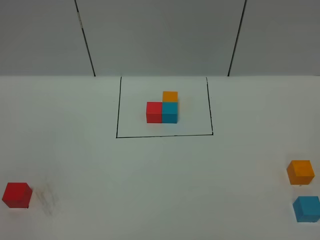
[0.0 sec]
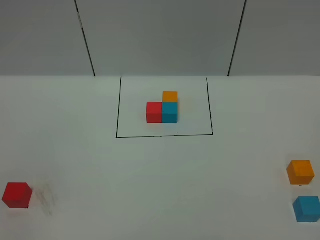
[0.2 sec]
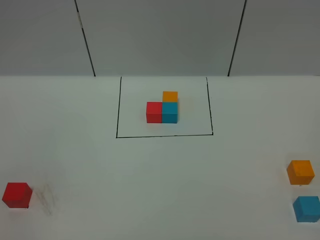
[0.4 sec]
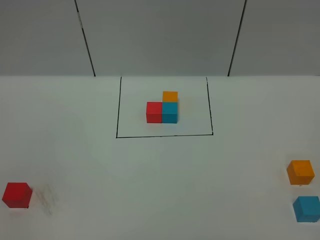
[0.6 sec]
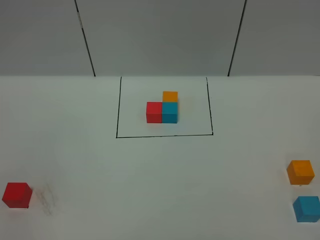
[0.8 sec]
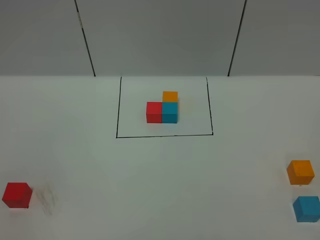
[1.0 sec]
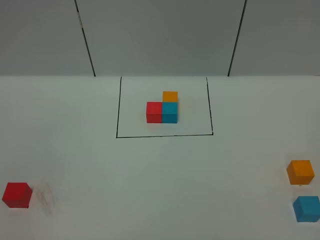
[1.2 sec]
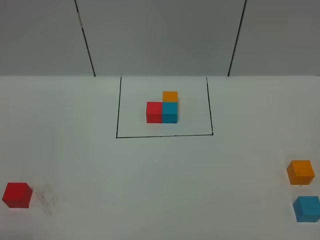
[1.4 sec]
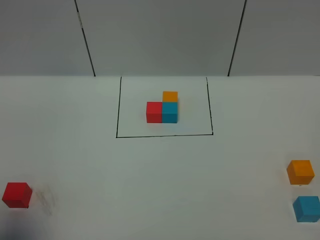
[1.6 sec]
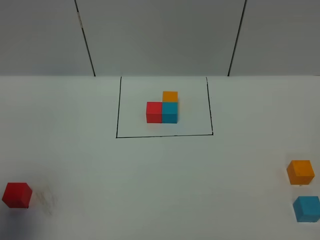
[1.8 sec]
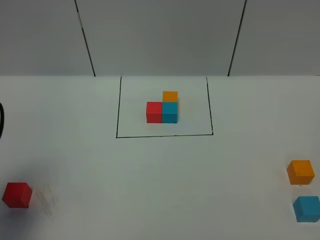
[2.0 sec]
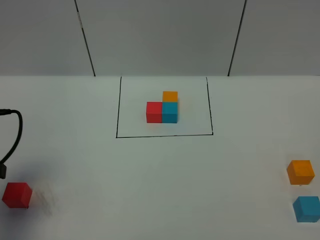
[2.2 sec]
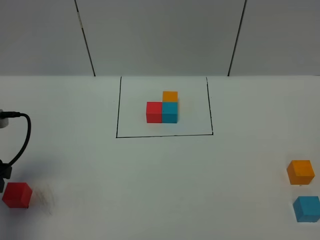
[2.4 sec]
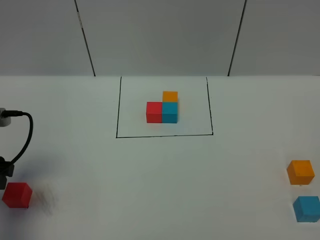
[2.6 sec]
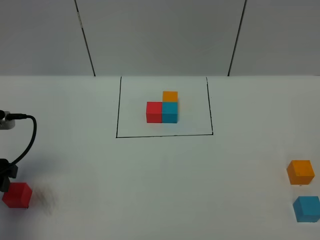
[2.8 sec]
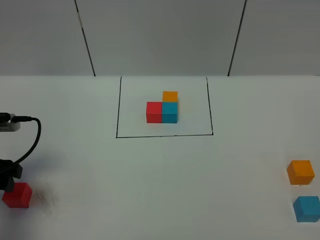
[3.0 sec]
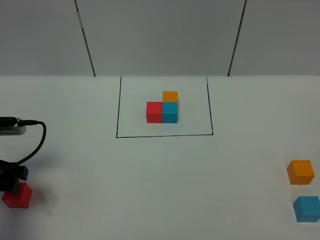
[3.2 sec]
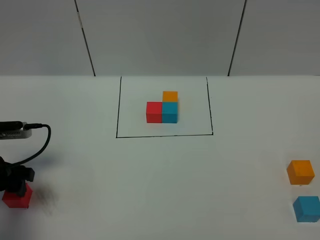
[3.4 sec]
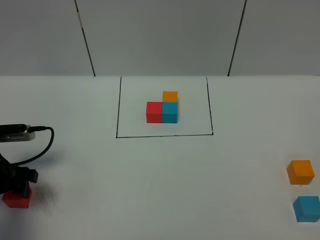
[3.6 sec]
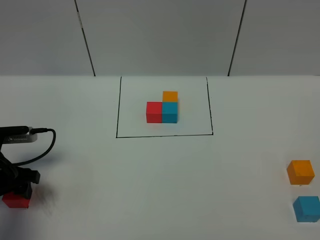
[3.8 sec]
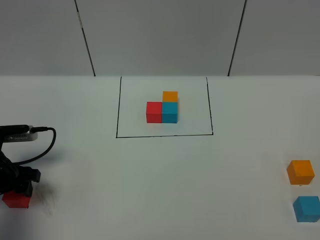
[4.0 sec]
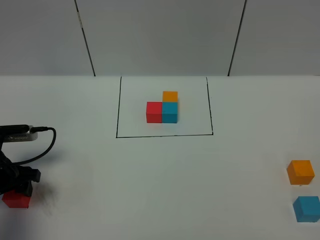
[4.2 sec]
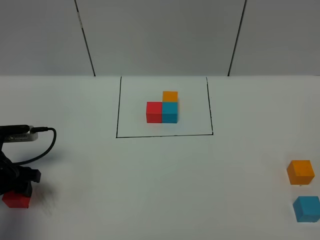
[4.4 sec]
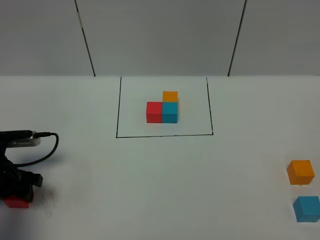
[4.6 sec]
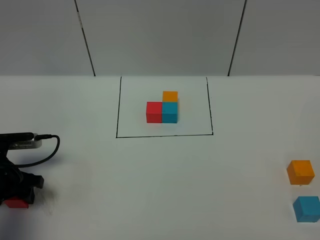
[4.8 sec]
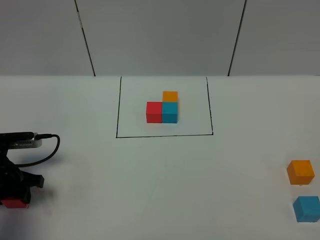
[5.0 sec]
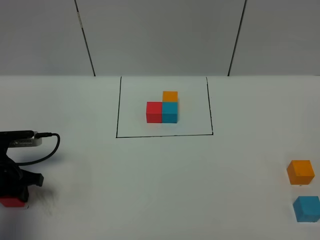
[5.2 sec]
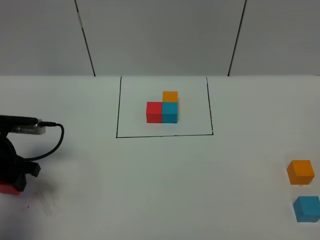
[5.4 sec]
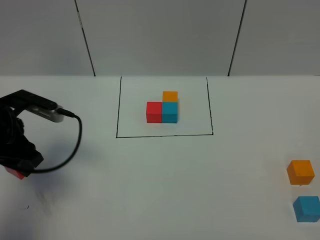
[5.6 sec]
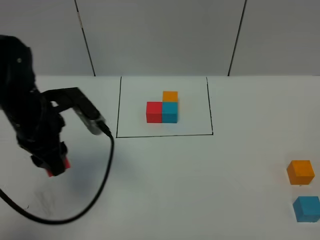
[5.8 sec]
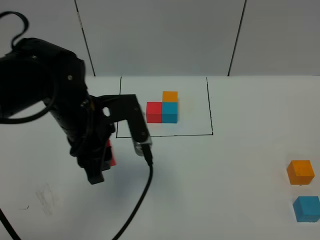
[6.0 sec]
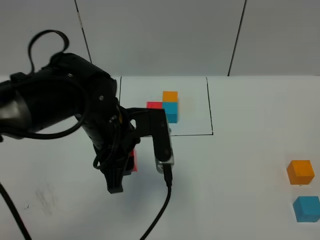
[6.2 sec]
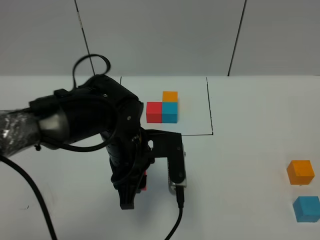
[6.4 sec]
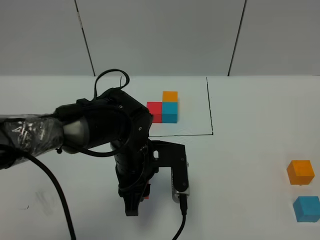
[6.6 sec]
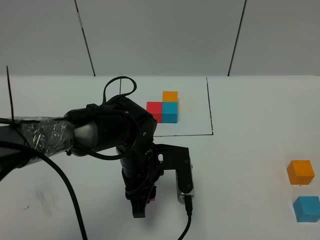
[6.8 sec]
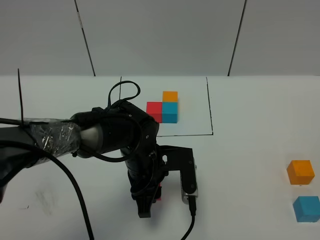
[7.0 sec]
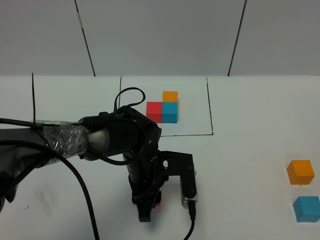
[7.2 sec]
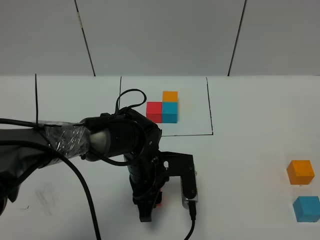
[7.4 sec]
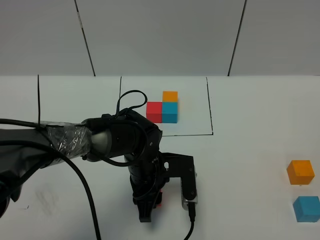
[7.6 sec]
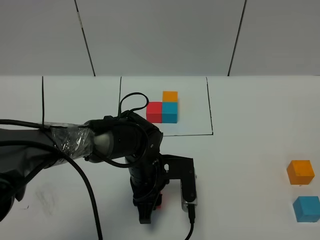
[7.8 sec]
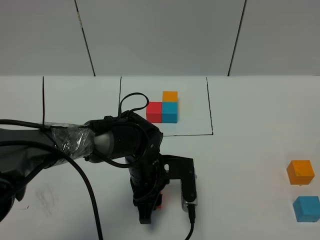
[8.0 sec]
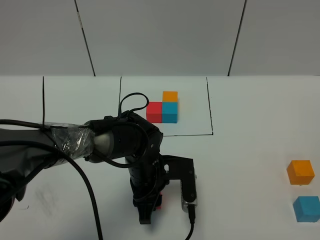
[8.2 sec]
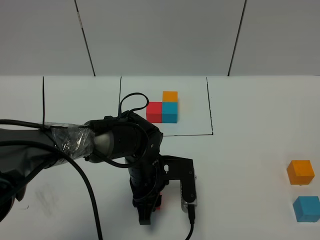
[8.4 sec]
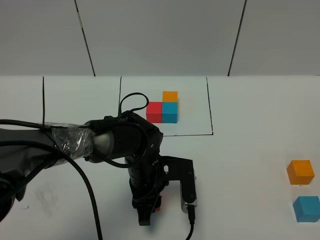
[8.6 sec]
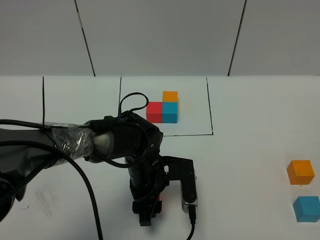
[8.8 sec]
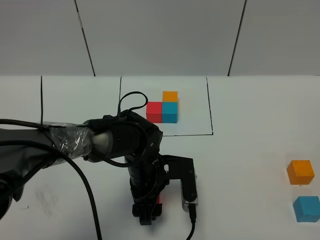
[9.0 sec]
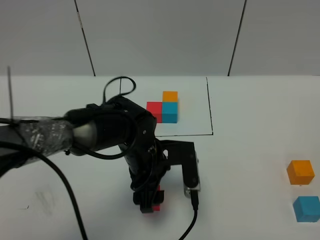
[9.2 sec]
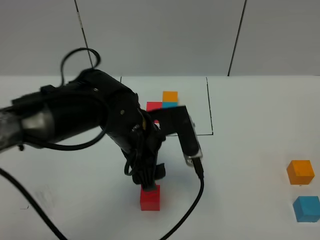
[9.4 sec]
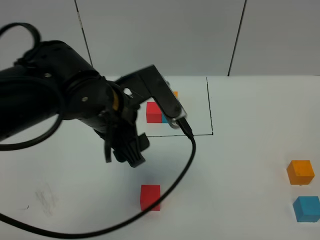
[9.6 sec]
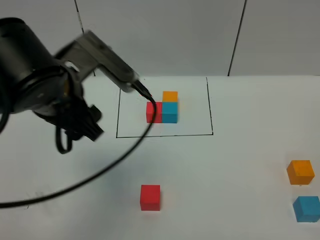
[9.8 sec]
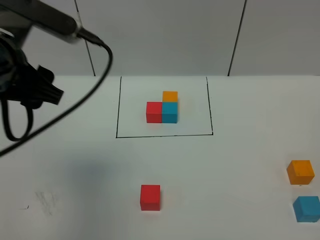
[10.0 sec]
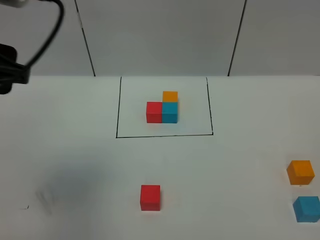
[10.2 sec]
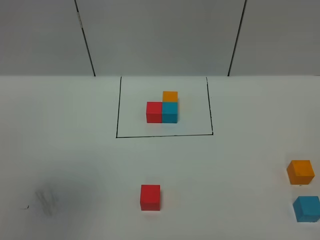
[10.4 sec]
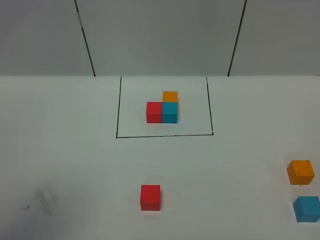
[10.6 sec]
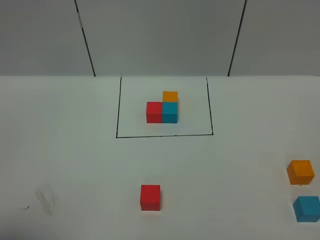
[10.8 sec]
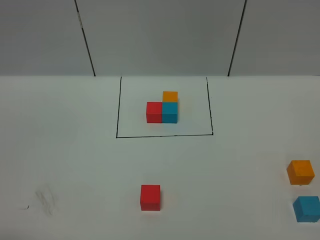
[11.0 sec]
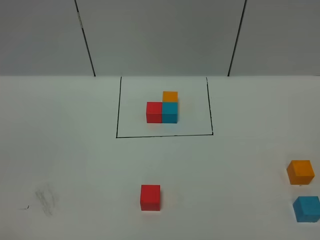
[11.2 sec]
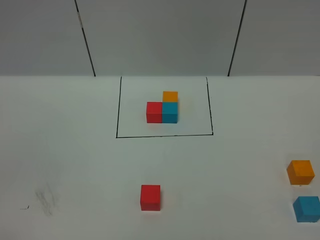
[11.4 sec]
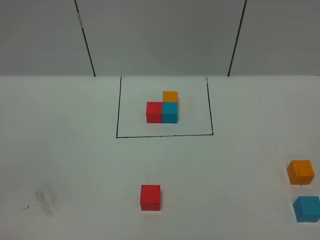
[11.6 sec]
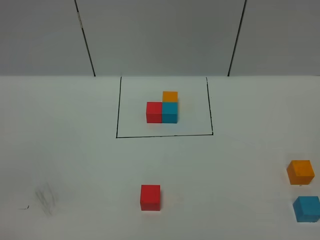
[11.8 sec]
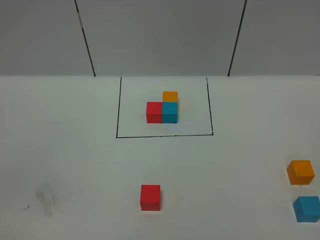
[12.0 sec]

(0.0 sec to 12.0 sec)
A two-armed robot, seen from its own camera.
Task of the whole recording: According to the building block template in front, assemble the scattered blocks together.
Step, 2.0 sec - 9.2 sec: Put the red cube in the center of the table.
0.0 sec - 1.6 sec: The left gripper goes roughly 15 cm forward and upward.
1.6 sec - 3.0 sec: The left gripper heads forward and downward, covering approximately 20 cm.
3.0 sec - 4.4 sec: The left gripper moves downward, approximately 5 cm.
4.4 sec - 6.0 sec: The left gripper heads to the right and upward, covering roughly 25 cm, and closes up.
6.0 sec - 7.6 sec: The left gripper moves downward and to the right, roughly 15 cm.
7.6 sec - 9.0 sec: The left gripper opens up.
9.0 sec - 10.4 sec: The left gripper shifts about 40 cm upward, to the left and backward.
10.4 sec - 12.0 sec: The left gripper moves downward, backward and to the left, approximately 25 cm.

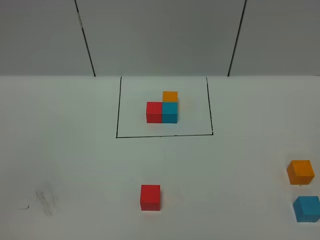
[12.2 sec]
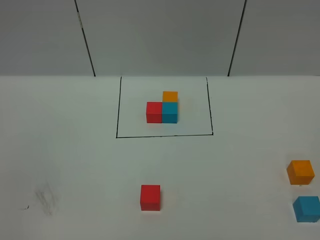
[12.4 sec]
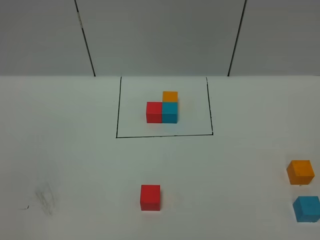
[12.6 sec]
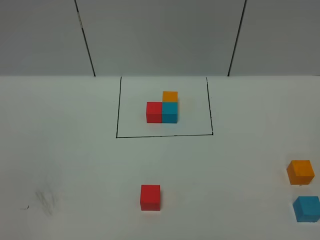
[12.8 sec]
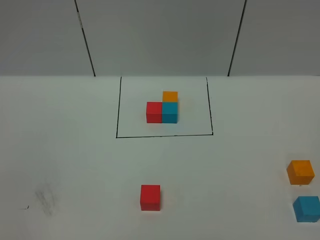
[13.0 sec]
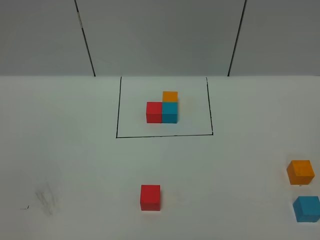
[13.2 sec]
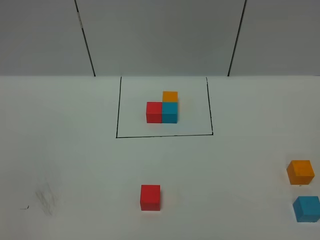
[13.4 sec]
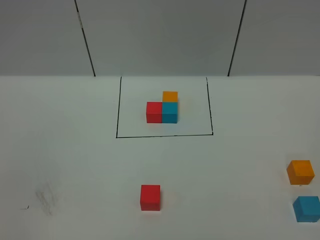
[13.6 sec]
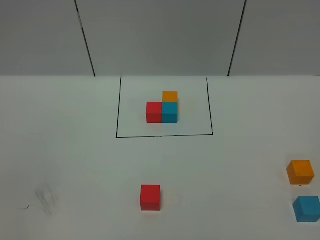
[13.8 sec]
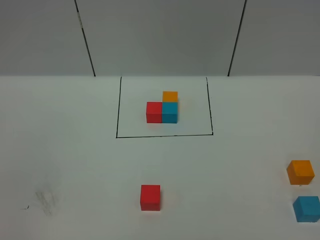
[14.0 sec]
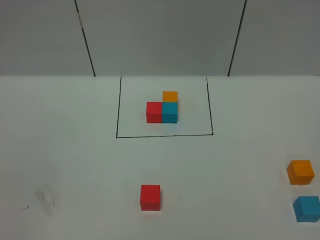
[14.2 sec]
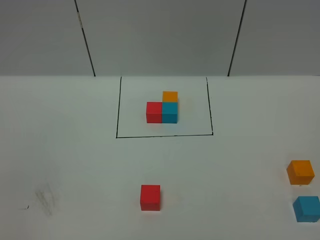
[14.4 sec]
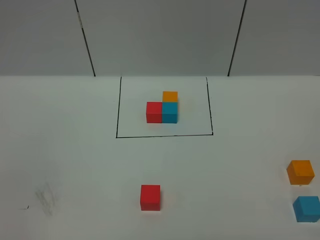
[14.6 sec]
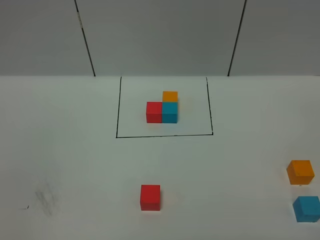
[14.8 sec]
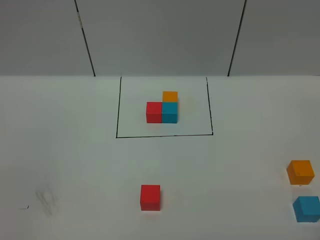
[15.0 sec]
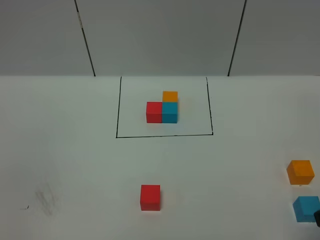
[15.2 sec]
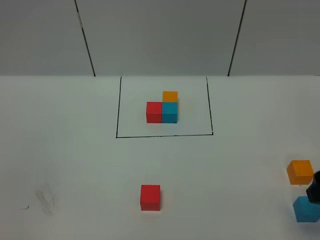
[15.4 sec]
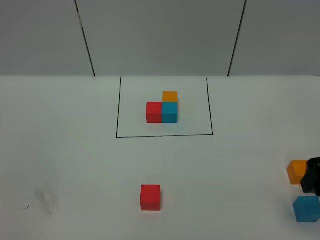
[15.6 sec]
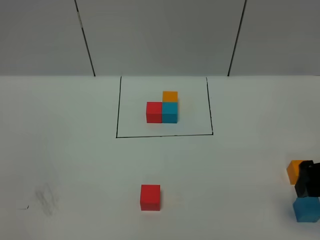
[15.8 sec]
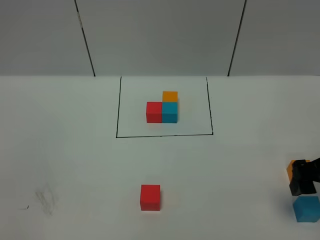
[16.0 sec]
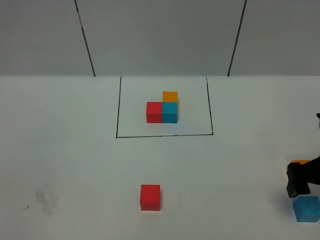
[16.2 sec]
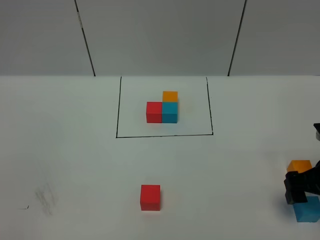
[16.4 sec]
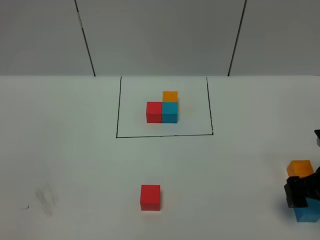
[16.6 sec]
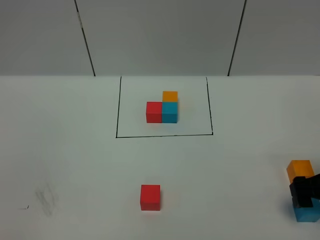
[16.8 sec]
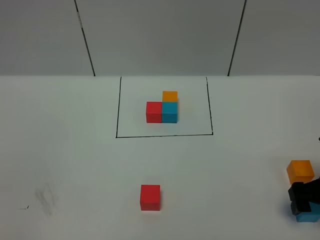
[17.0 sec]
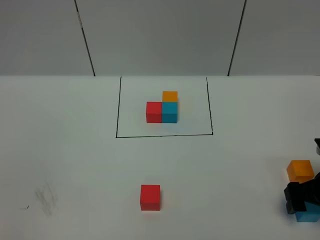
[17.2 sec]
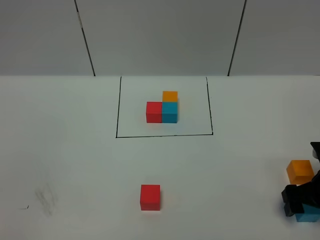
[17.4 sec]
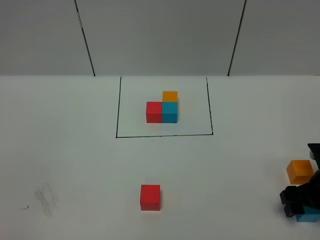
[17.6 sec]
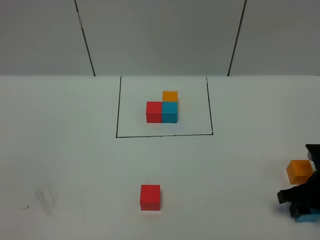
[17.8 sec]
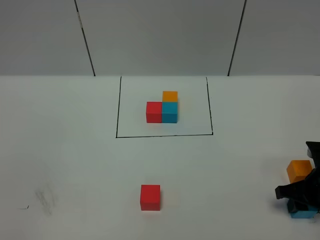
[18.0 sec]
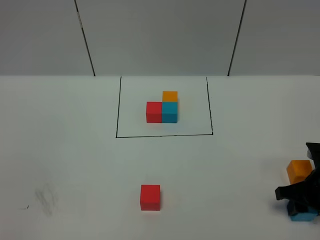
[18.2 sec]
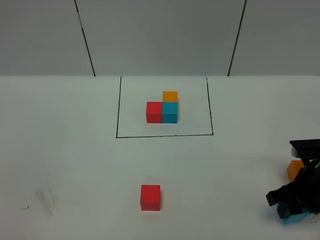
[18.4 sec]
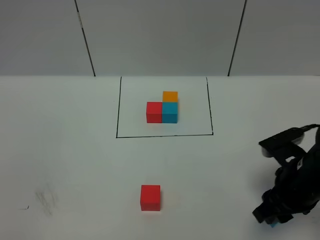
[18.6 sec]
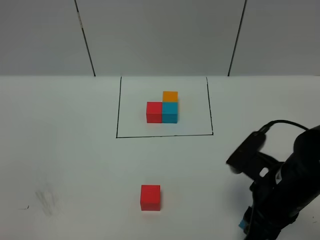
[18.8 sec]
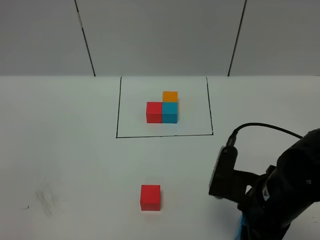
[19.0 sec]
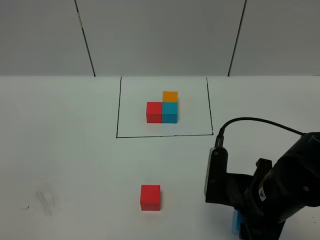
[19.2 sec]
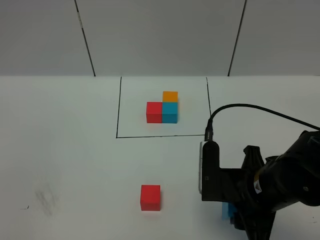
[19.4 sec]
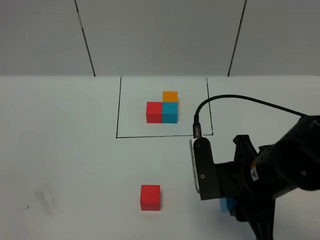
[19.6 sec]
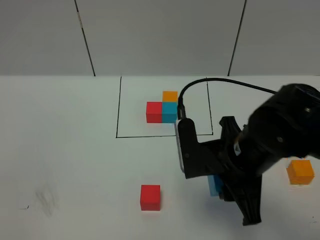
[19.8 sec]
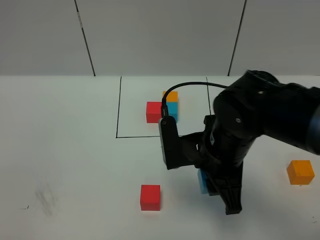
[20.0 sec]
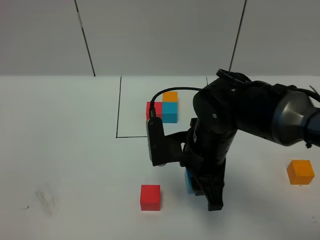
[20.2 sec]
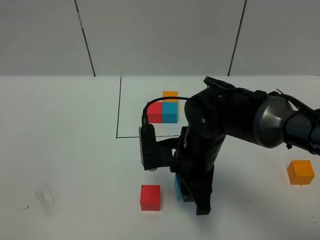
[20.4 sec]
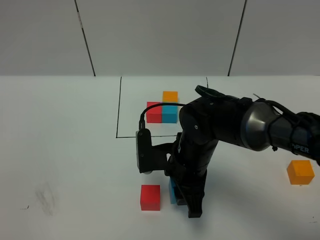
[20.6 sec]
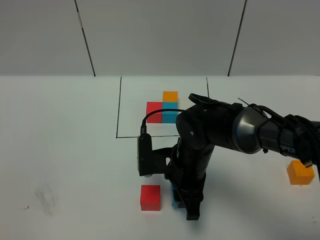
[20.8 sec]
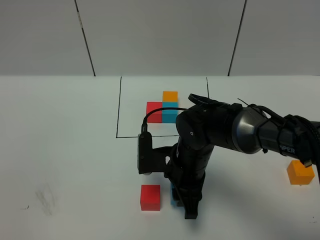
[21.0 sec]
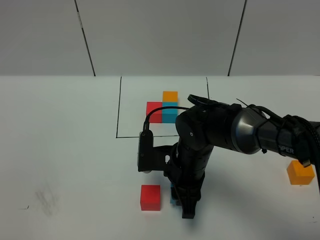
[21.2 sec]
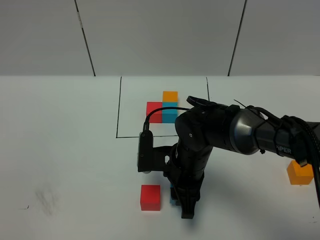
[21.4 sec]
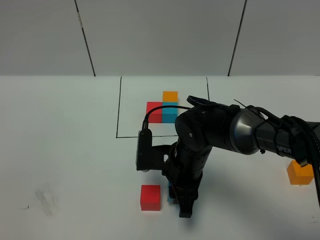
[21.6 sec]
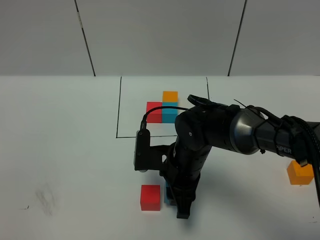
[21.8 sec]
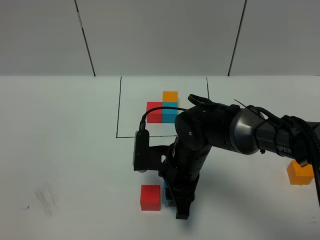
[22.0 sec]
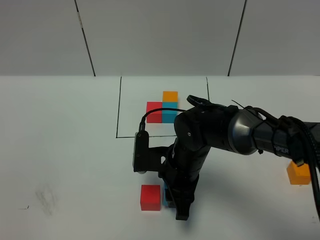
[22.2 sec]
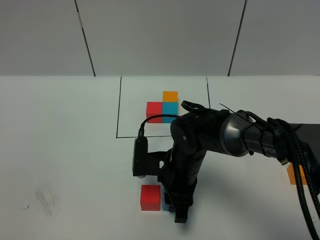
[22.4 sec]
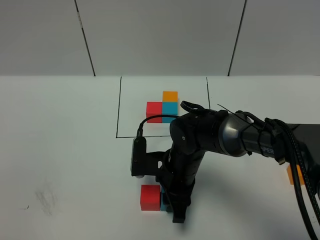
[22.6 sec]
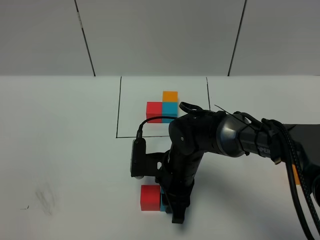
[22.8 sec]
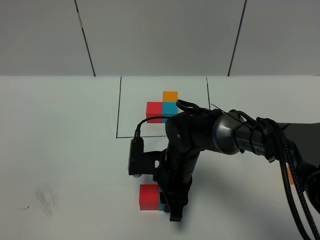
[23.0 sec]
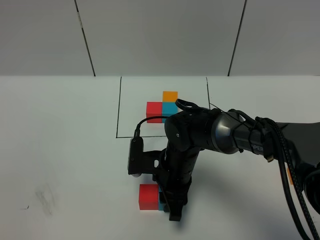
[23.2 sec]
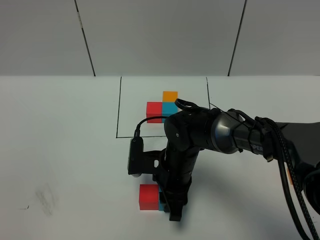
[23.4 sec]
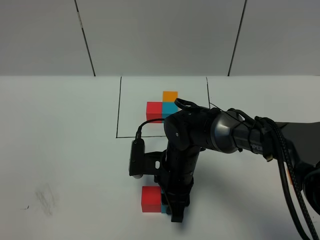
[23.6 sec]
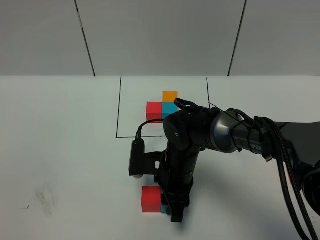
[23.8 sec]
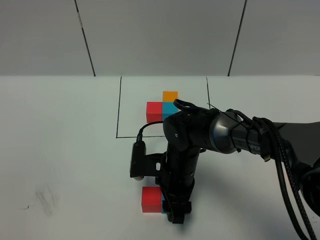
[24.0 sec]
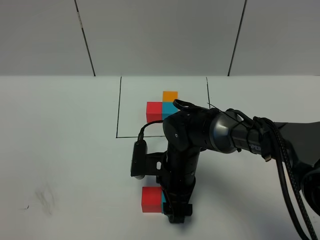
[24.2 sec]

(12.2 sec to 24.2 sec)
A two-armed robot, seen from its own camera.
Task of the whole recording: According to the building block template in front, assemble the scattered blocks together.
15.2 sec - 16.6 sec: The right gripper goes about 15 cm downward and forward.
16.6 sec - 18.2 sec: The right gripper shifts about 5 cm downward, and closes up.
18.2 sec - 19.8 sec: The right gripper travels to the left and upward by roughly 25 cm.
19.8 sec - 21.2 sec: The right gripper travels downward, to the left and forward by roughly 15 cm.
21.2 sec - 22.6 sec: The grippers make only small movements.
22.6 sec - 24.2 sec: The right gripper opens up.
